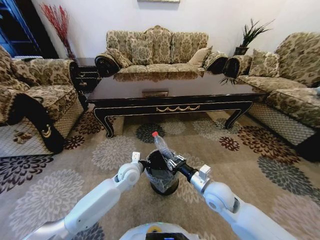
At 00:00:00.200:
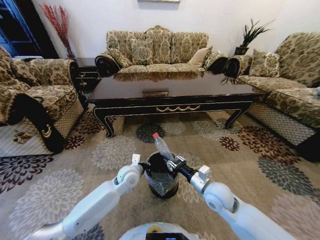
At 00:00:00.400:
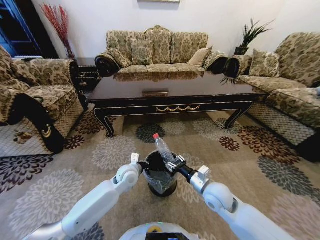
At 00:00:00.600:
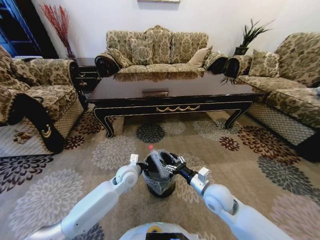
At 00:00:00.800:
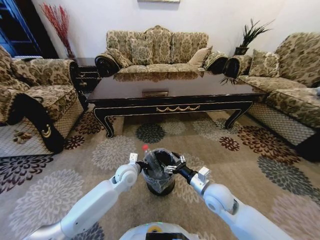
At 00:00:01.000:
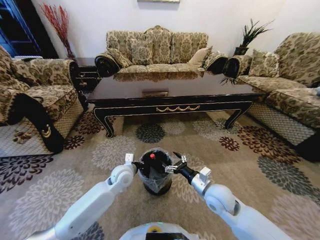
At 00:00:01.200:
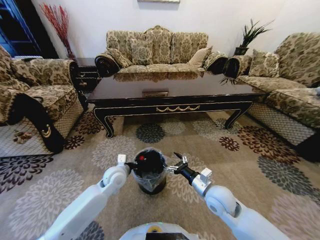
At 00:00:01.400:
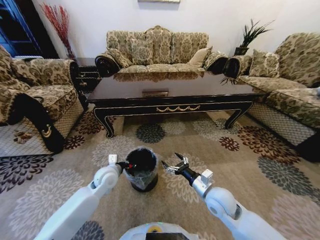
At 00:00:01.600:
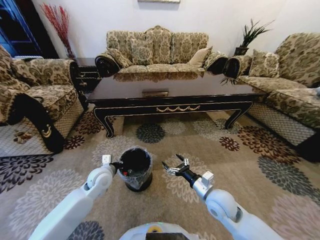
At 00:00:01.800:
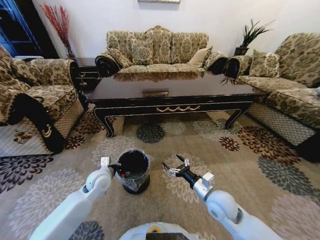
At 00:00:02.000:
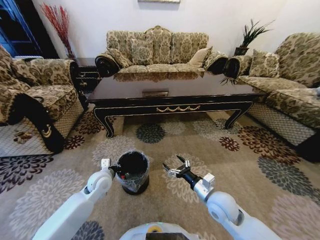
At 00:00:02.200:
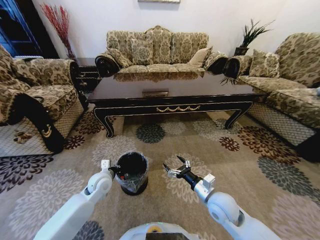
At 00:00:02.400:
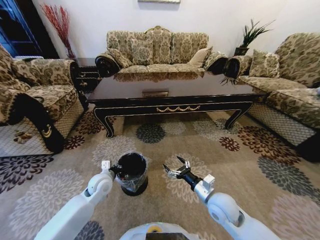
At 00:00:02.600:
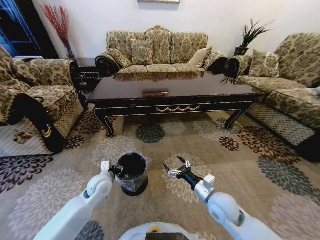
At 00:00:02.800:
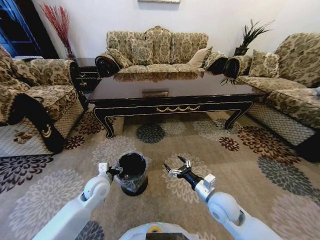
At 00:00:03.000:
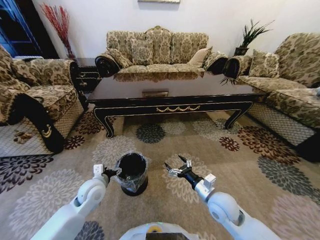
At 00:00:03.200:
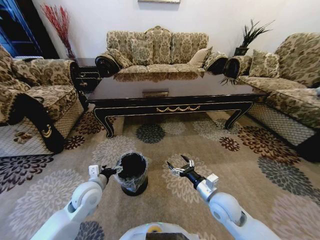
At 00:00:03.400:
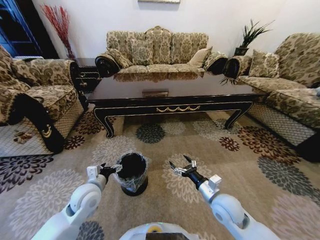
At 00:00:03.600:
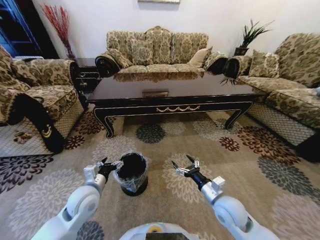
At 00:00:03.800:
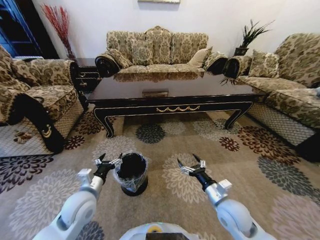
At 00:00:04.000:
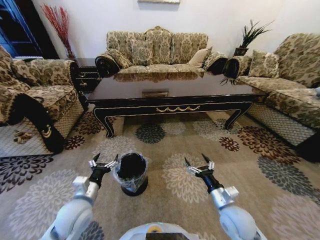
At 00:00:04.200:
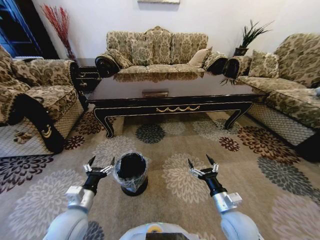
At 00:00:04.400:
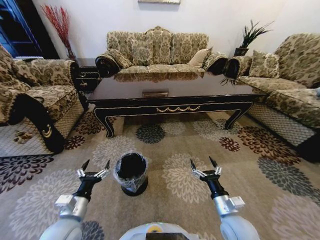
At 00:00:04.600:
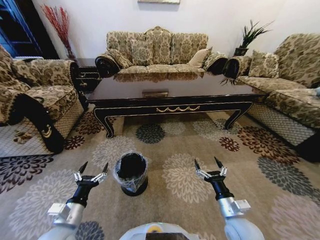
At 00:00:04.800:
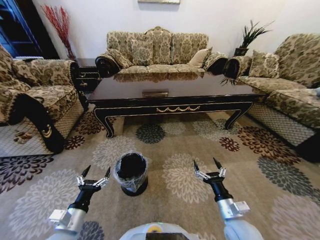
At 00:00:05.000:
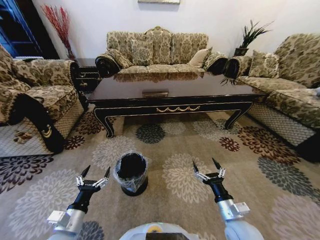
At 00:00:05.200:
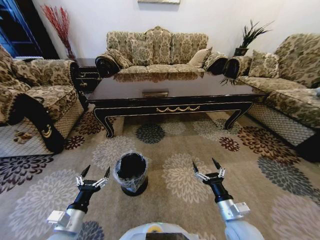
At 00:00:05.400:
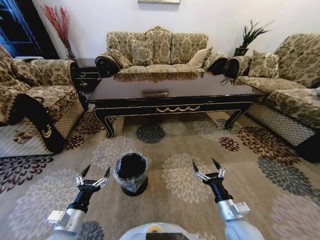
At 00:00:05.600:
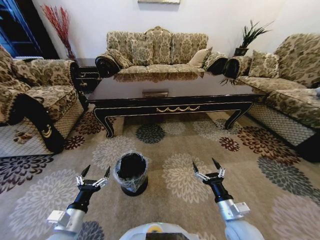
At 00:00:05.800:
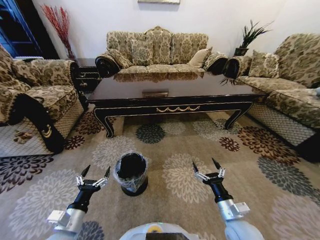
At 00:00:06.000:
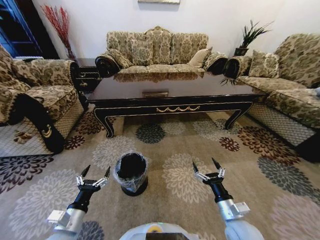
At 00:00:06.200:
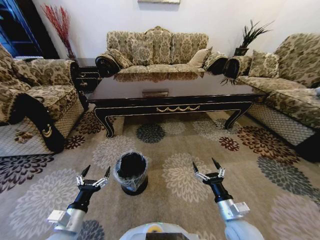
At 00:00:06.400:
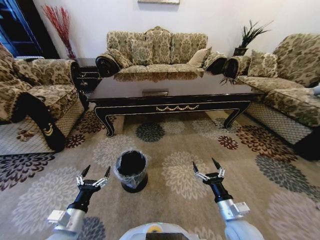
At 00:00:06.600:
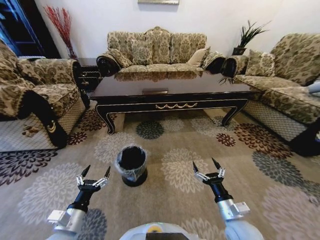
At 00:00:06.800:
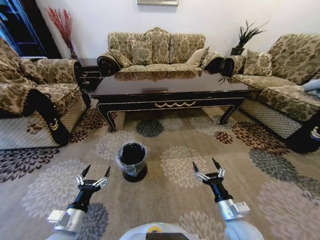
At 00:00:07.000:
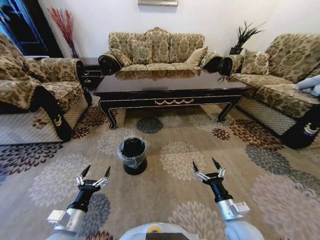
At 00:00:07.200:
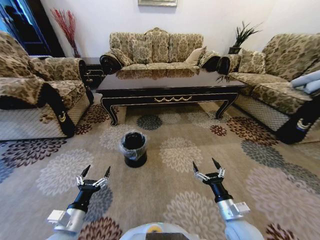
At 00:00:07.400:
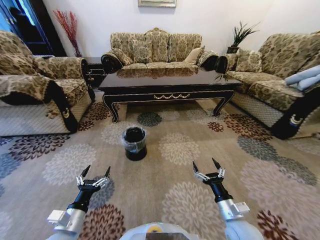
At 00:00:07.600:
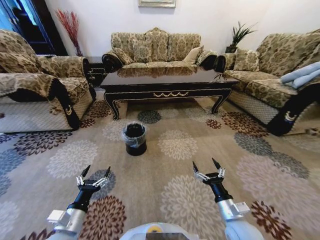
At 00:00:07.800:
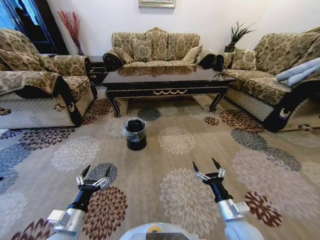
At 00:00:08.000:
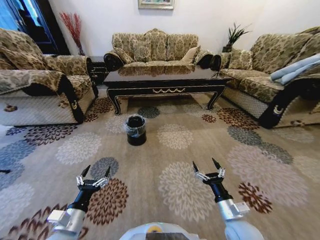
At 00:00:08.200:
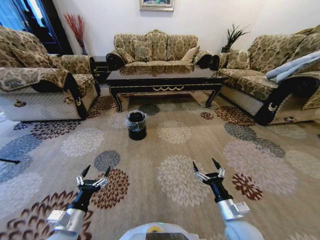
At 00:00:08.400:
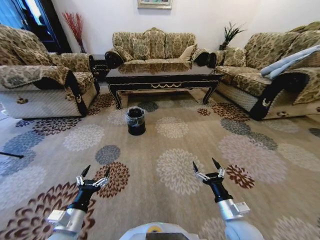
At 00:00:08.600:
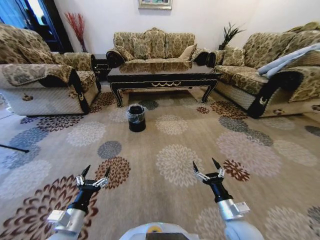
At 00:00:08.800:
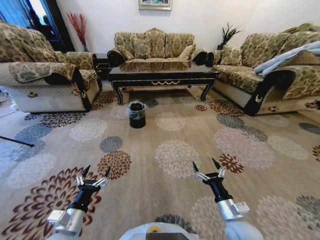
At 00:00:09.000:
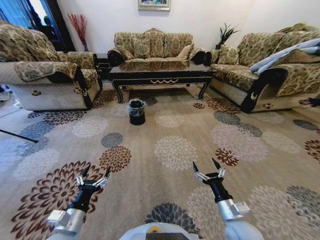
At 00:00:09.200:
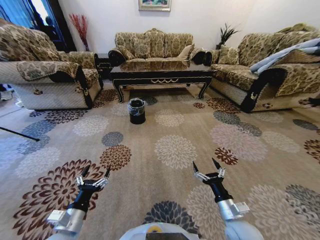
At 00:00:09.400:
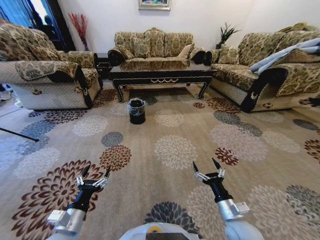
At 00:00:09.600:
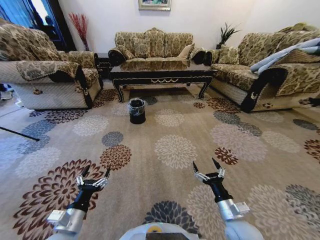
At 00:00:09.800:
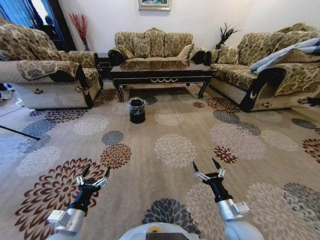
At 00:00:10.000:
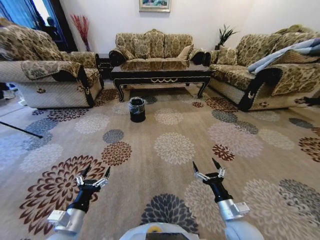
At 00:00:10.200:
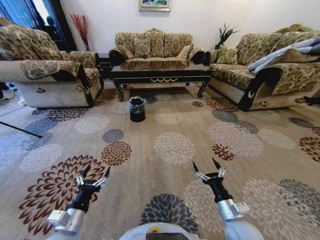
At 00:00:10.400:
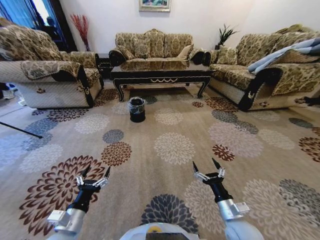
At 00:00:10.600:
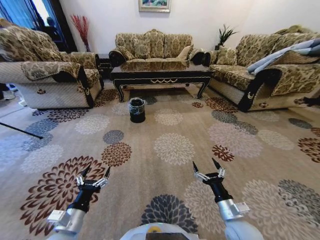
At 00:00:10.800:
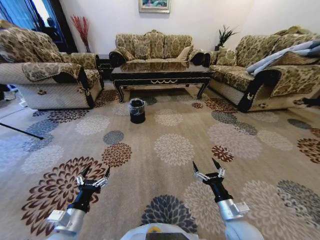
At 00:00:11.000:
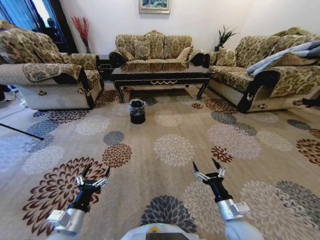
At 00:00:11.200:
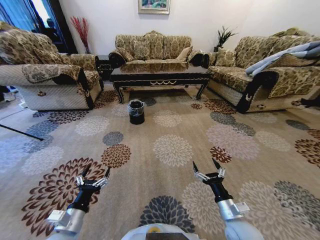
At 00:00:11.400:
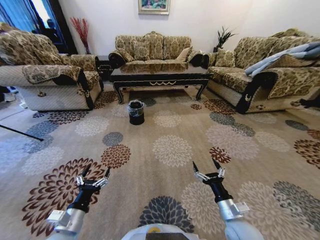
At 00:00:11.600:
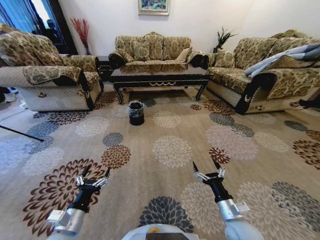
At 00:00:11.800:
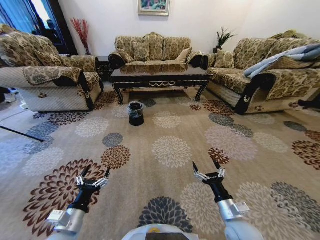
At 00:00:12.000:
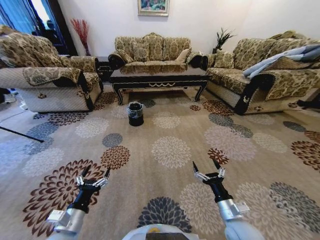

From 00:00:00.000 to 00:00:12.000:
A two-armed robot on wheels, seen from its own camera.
Task of the whole recording: Move to the front of the table and pick up the trash from the floor, then place it into the trash bin.
From 00:00:00.000 to 00:00:01.600: The right gripper opens. The left gripper goes roughly 10 cm to the left.
From 00:00:01.600 to 00:00:03.000: The left gripper ends up about 5 cm from where it was, and opens.
From 00:00:03.000 to 00:00:04.400: The right gripper travels backward by roughly 5 cm; the left gripper heads backward, covering some 15 cm.
From 00:00:04.400 to 00:00:06.000: The grippers move only a little.
From 00:00:09.000 to 00:00:10.400: The two grippers keep their place.

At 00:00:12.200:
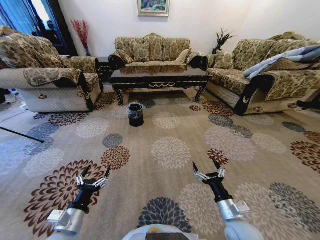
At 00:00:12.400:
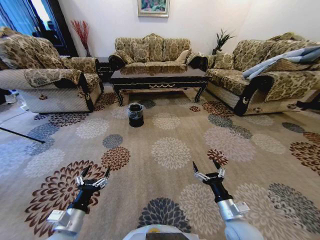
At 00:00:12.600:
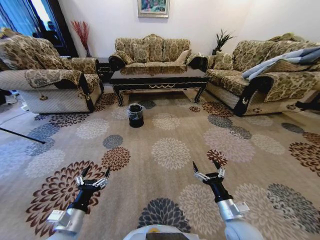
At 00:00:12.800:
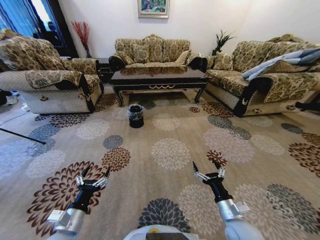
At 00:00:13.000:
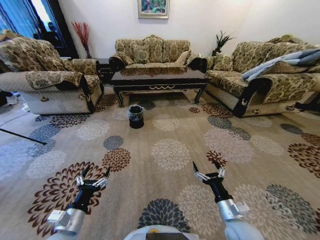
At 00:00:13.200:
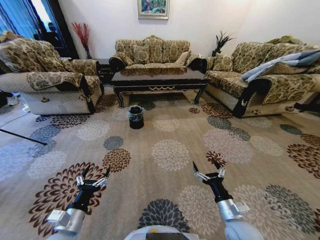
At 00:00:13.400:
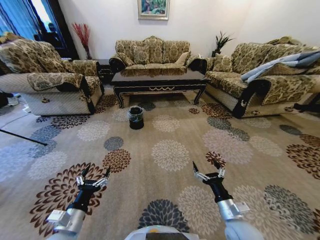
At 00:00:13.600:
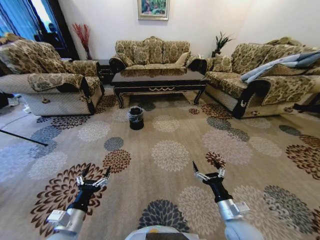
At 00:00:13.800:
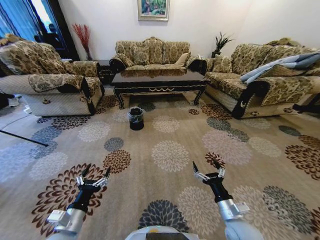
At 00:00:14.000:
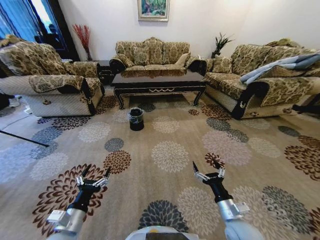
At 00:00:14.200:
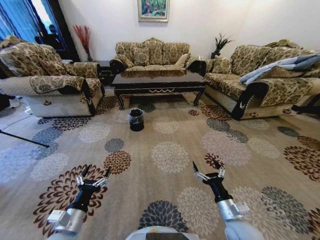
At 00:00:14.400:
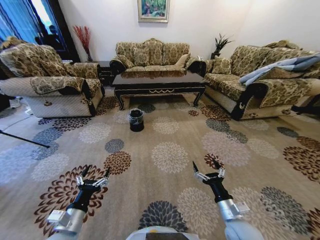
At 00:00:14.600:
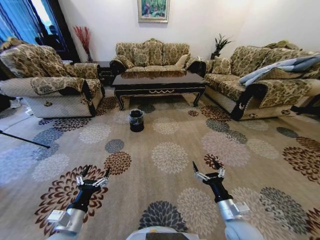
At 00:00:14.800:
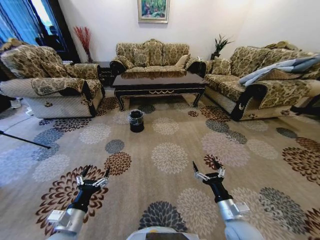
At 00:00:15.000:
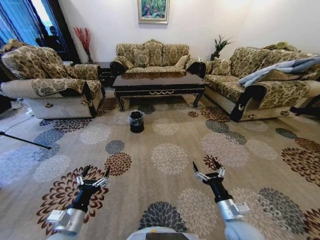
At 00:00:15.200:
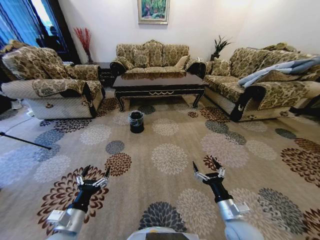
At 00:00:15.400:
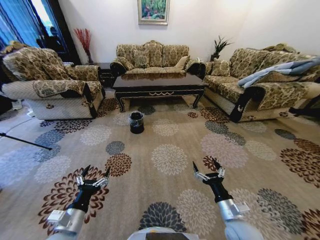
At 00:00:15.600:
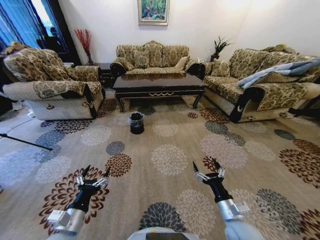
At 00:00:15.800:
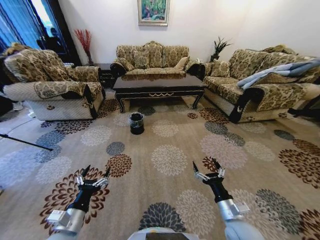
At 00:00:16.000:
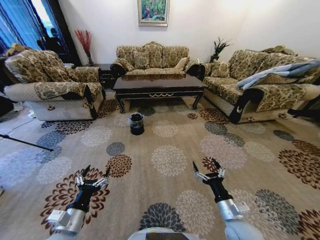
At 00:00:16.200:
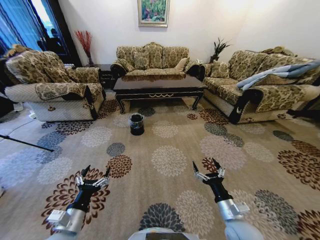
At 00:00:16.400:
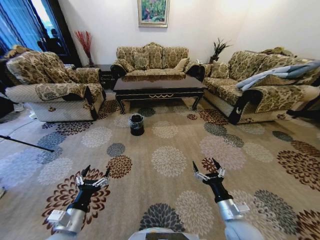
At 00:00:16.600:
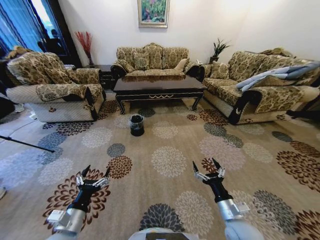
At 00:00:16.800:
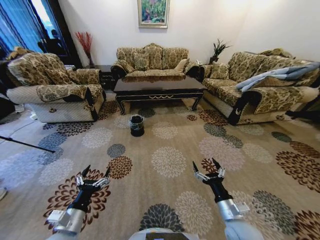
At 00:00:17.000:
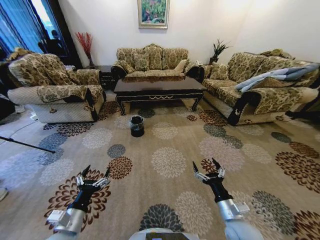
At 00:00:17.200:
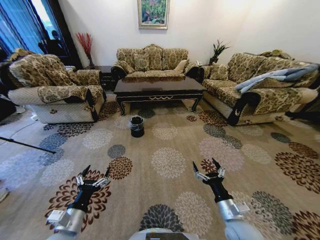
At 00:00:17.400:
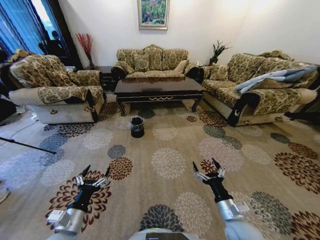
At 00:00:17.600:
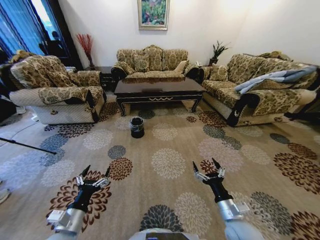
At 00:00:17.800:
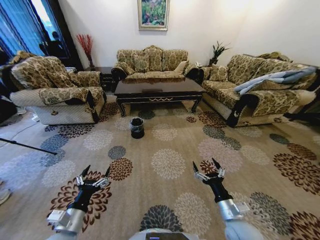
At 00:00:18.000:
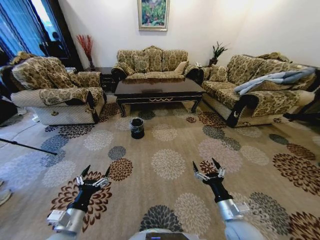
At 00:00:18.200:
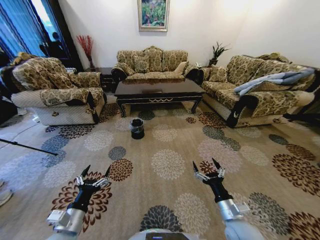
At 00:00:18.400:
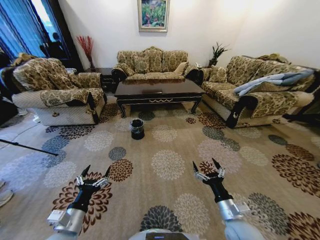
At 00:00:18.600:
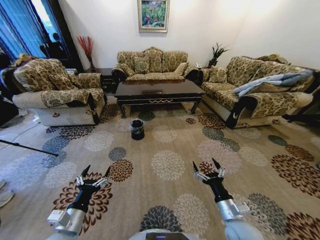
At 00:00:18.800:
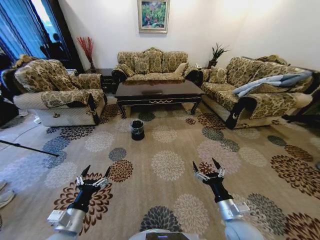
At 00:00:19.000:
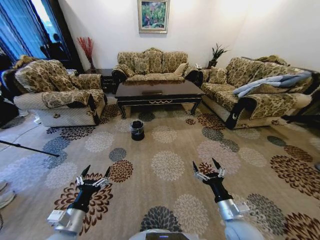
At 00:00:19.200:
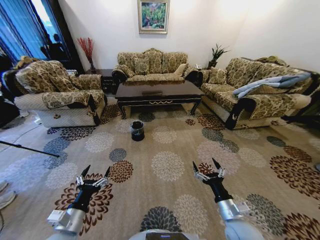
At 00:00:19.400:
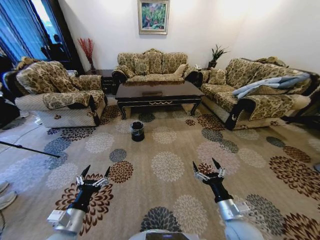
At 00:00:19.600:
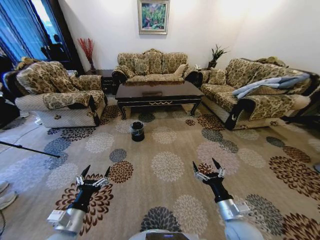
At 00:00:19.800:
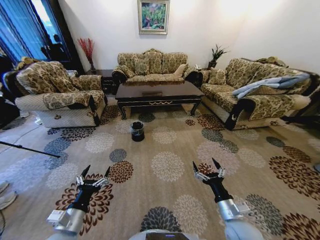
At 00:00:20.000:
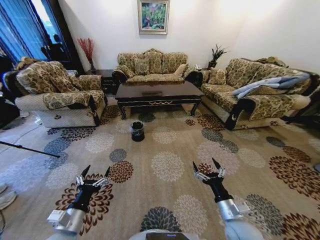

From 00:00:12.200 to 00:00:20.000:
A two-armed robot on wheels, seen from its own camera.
Task of the whole recording: Move to the front of the table and pick up the trash from the floor, then place it into the trash bin.
From 00:00:18.400 to 00:00:20.000: Both grippers stay put.
